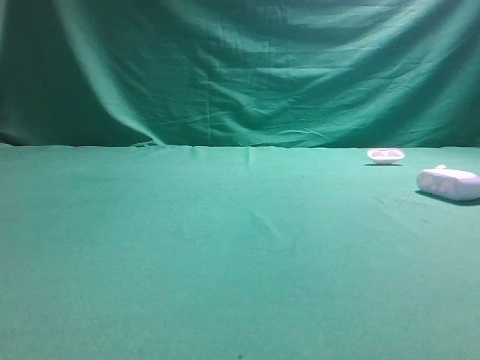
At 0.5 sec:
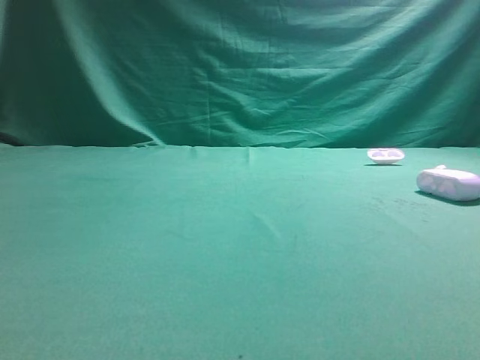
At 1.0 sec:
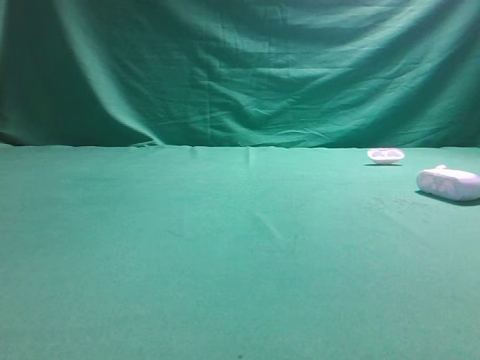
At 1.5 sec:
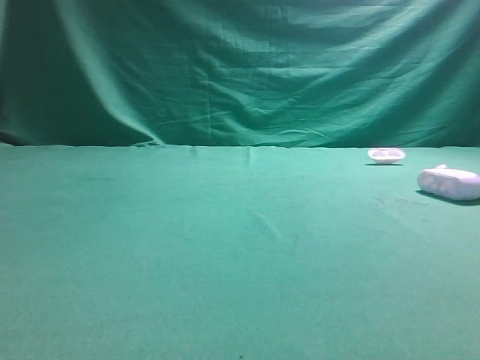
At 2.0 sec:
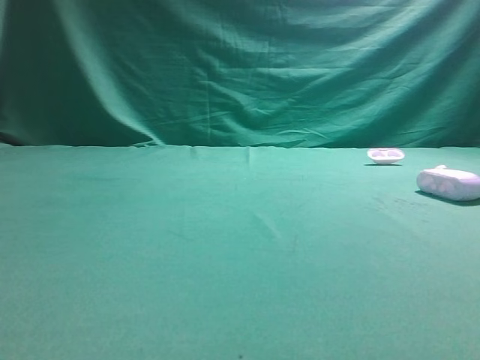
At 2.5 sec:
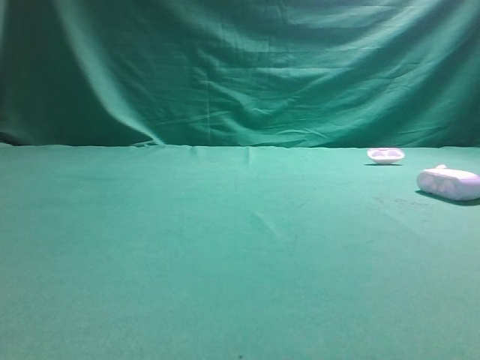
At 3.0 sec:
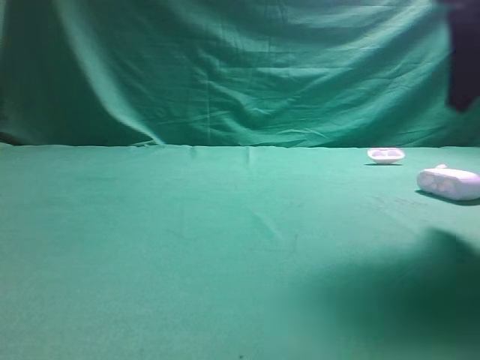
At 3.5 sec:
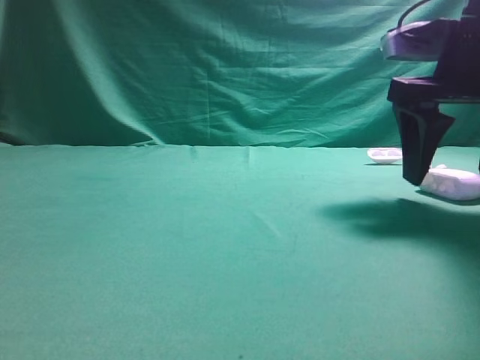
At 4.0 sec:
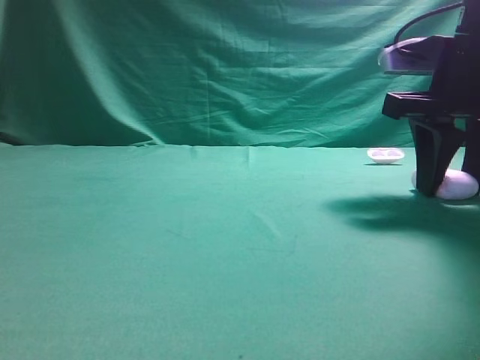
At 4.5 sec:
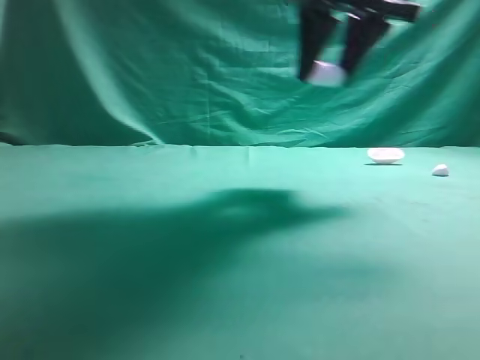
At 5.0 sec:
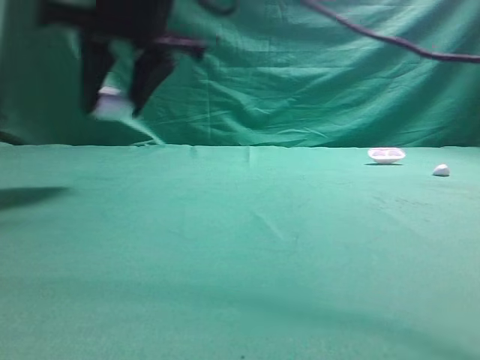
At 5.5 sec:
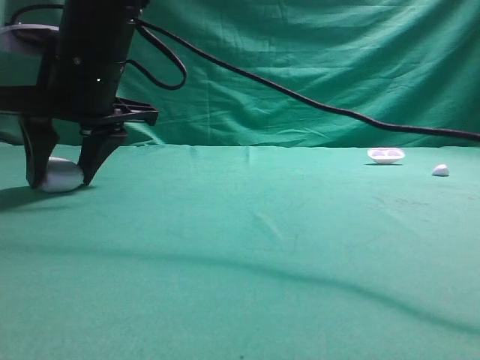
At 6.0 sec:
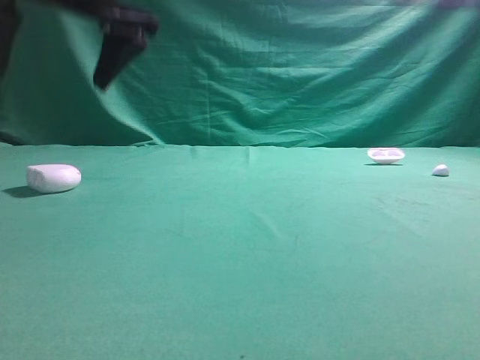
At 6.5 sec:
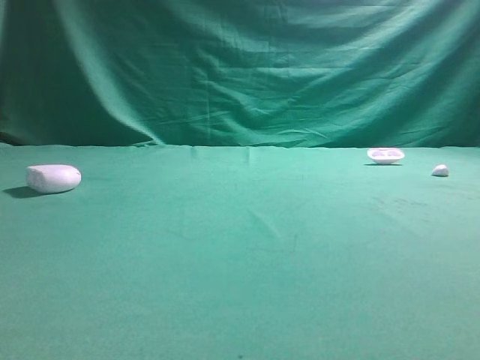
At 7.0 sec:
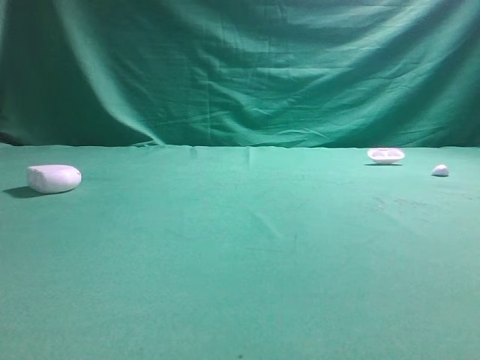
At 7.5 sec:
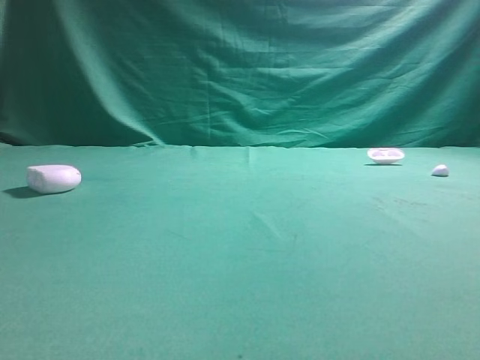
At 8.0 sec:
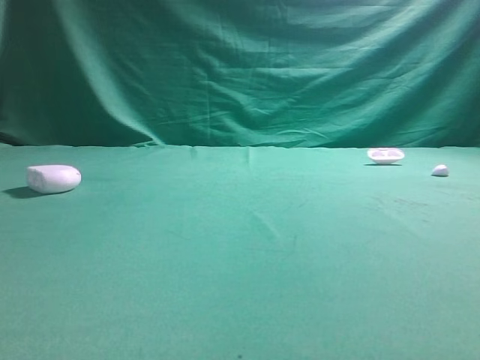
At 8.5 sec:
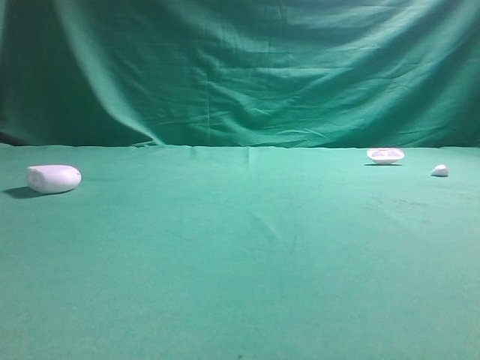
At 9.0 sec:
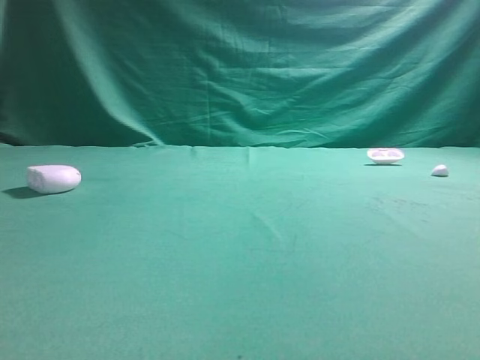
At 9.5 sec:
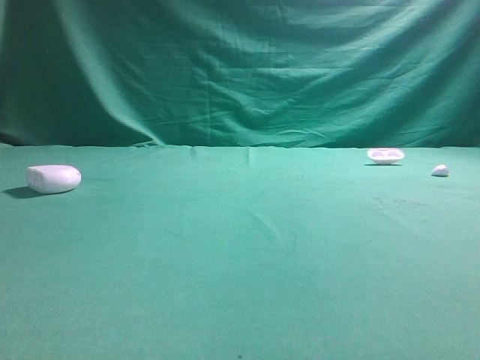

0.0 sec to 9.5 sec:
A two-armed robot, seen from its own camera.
Step, 0.0 sec to 4.0 sec: Grasp the Bluetooth earphone case.
Step, 4.5 sec to 5.5 sec: Place bluetooth earphone case on the left side of the table.

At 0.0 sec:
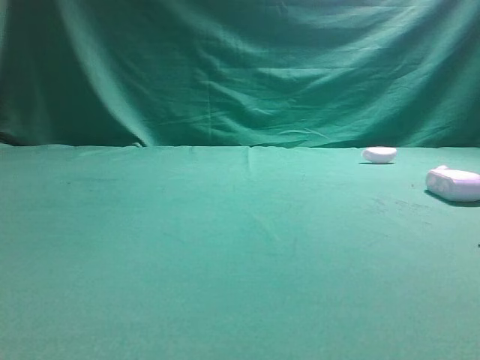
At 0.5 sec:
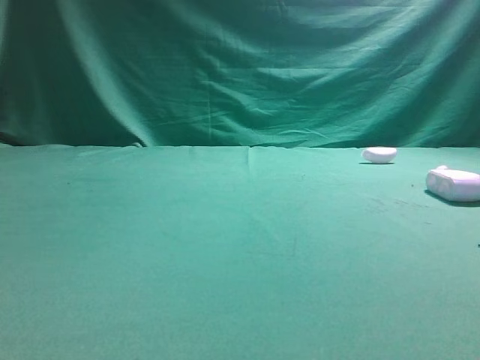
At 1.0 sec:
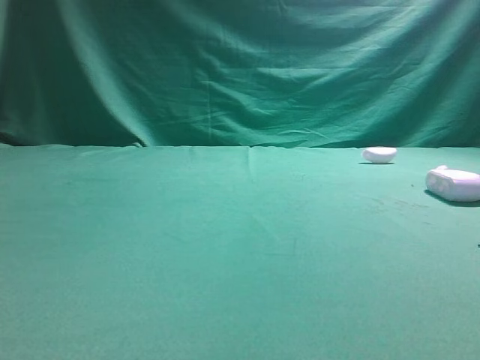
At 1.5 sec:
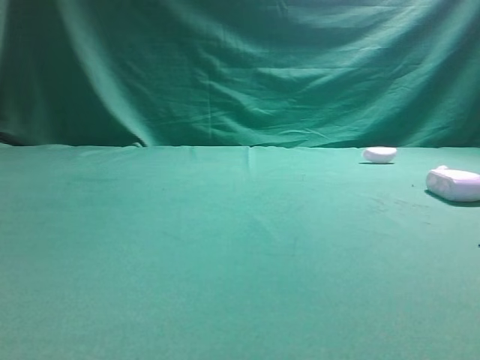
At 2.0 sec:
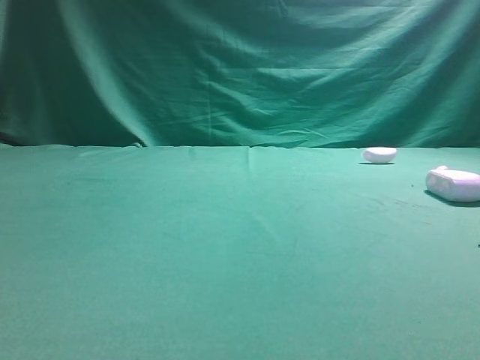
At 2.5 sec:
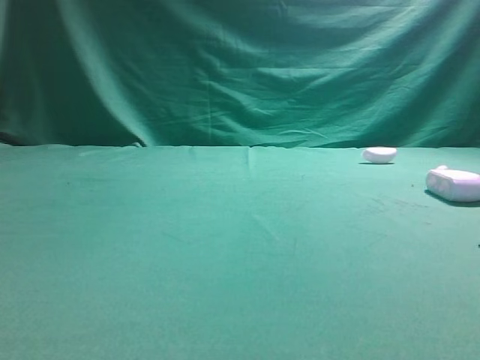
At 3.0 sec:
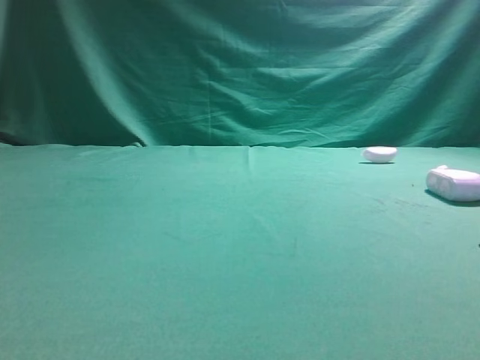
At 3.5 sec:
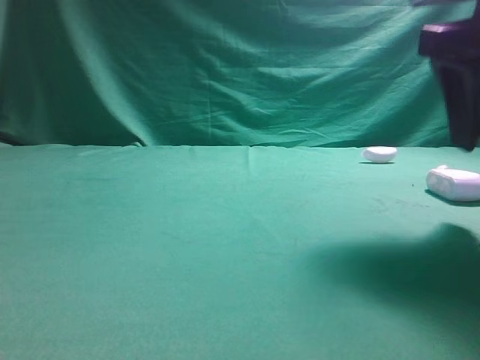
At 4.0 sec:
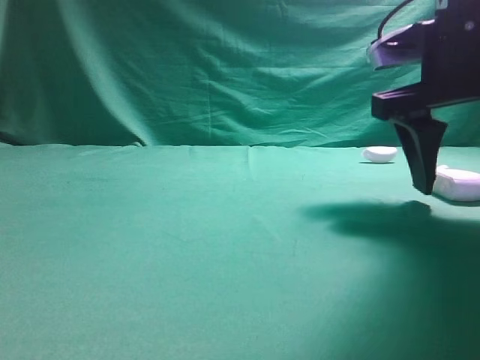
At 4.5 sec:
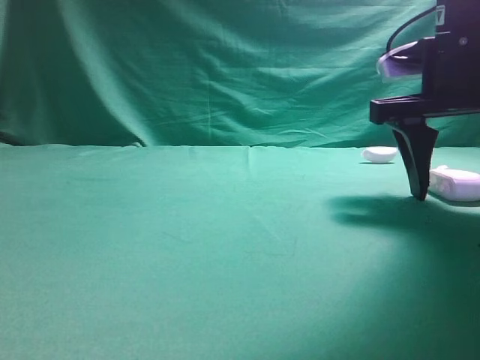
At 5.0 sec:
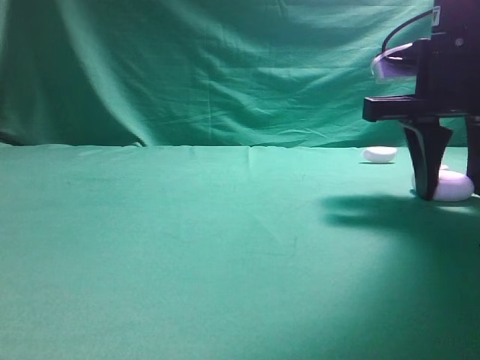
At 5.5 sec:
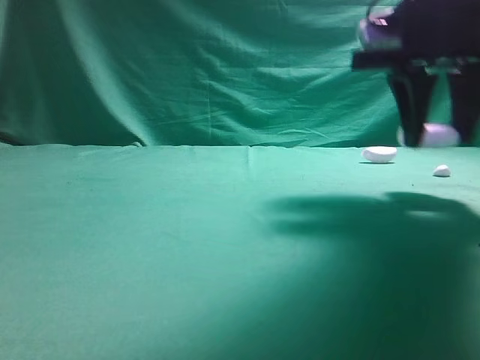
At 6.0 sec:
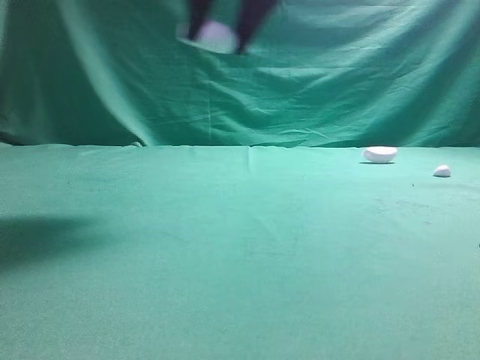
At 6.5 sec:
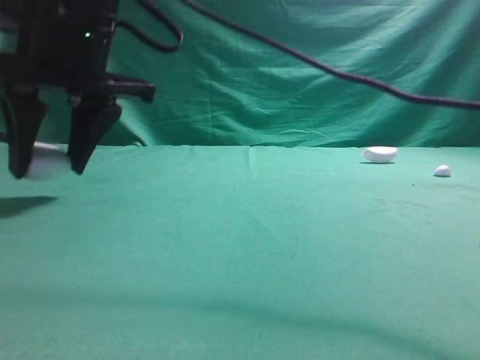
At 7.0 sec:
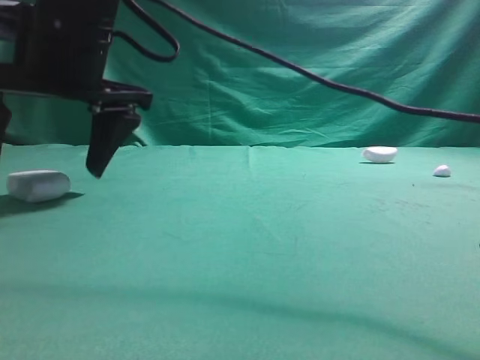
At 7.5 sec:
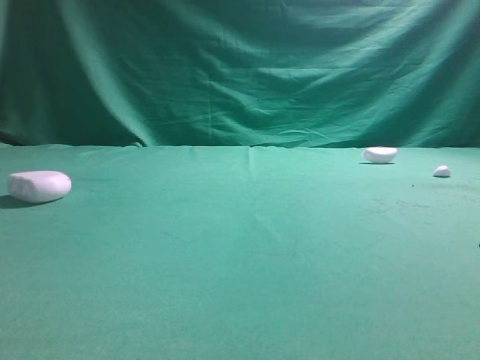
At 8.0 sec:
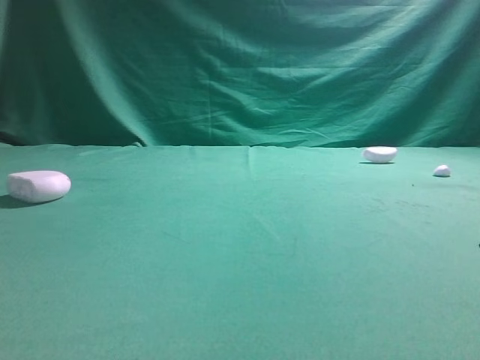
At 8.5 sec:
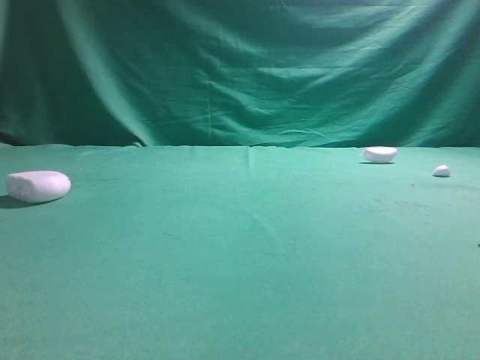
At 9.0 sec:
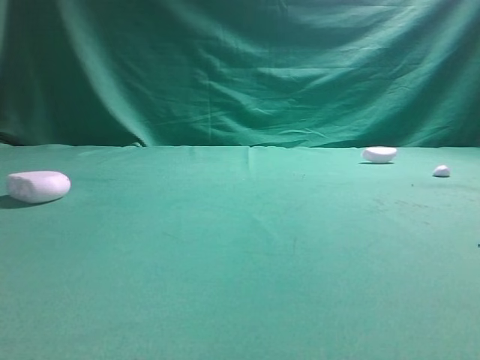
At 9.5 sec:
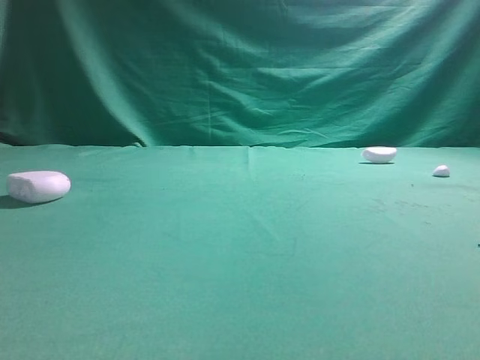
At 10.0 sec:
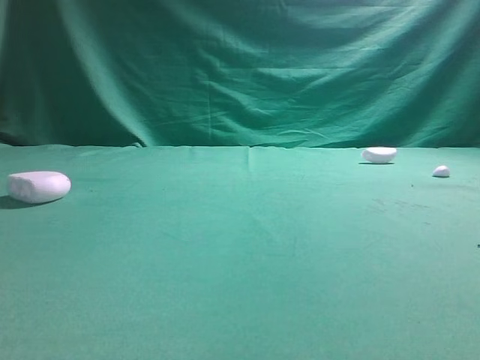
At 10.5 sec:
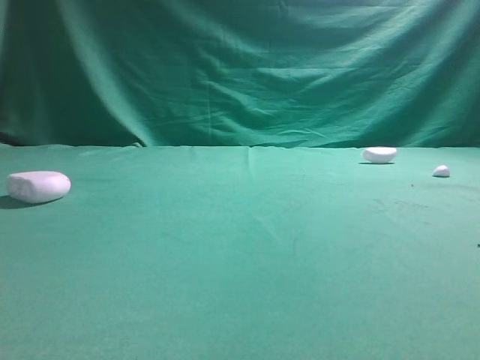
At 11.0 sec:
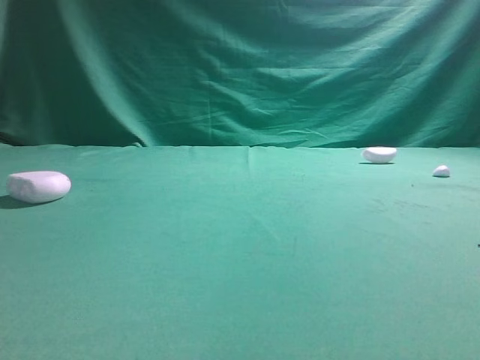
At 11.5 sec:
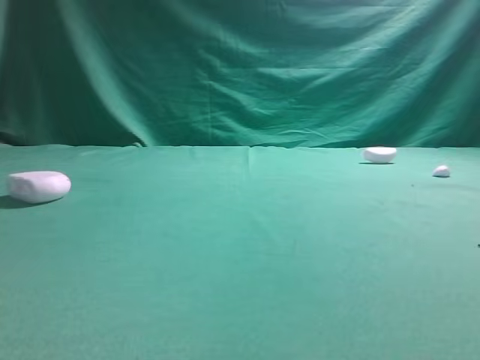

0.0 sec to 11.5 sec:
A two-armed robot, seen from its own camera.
Step, 0.0 sec to 5.5 sec: Grasp the Bluetooth earphone case.
Step, 6.0 sec to 7.0 sec: Place bluetooth earphone case on the left side of the table.

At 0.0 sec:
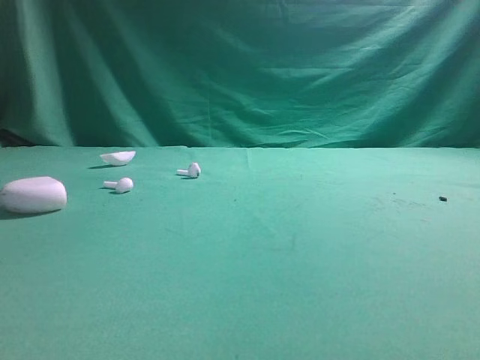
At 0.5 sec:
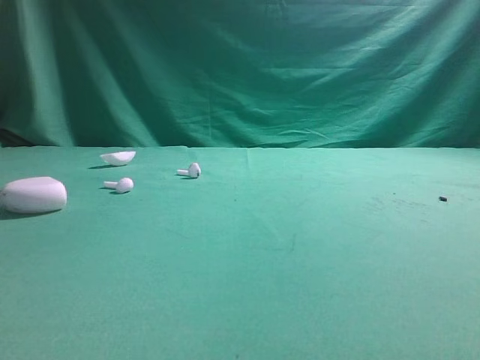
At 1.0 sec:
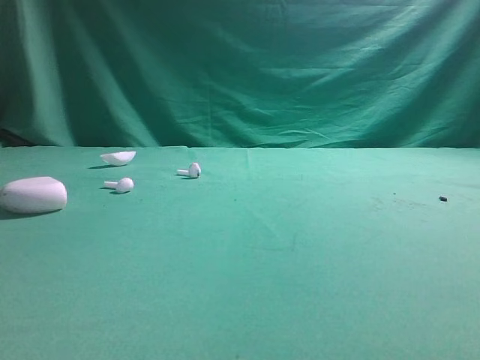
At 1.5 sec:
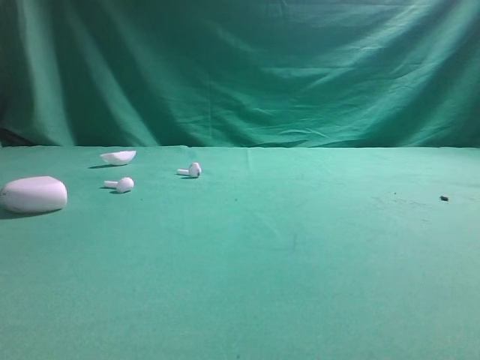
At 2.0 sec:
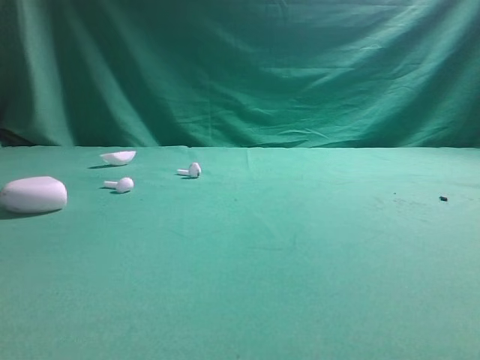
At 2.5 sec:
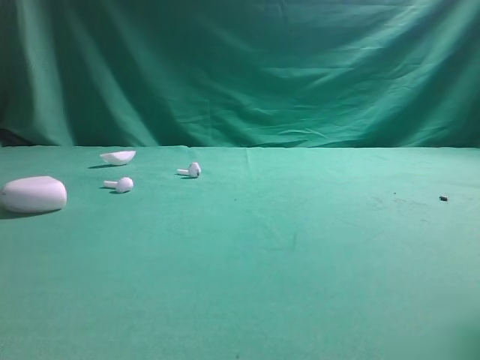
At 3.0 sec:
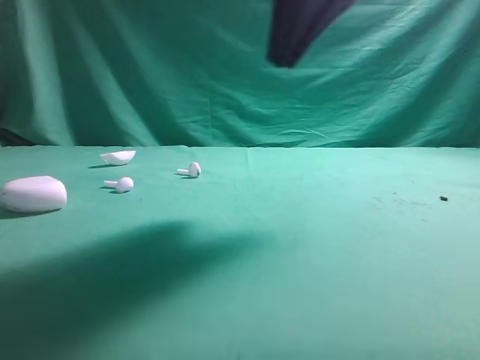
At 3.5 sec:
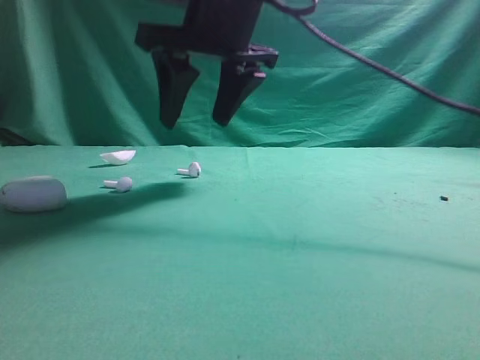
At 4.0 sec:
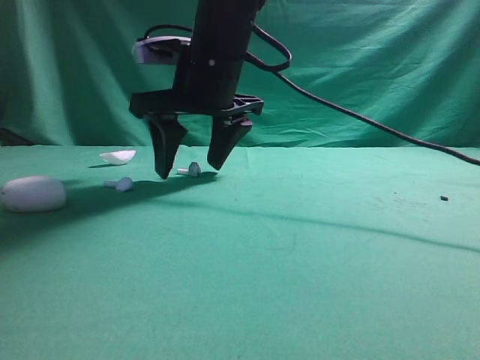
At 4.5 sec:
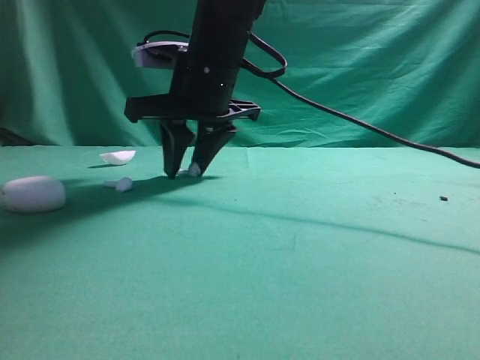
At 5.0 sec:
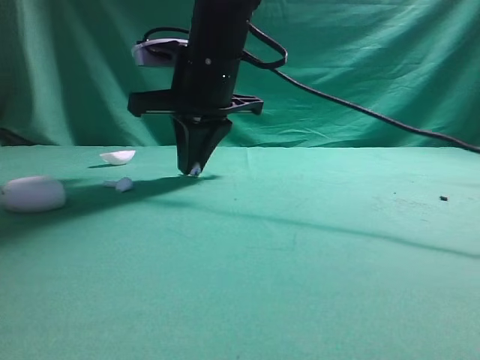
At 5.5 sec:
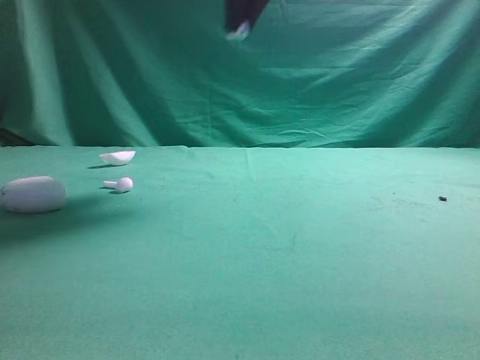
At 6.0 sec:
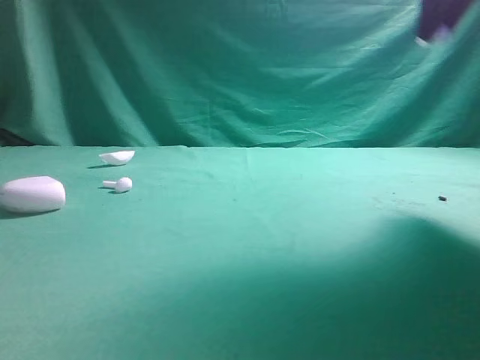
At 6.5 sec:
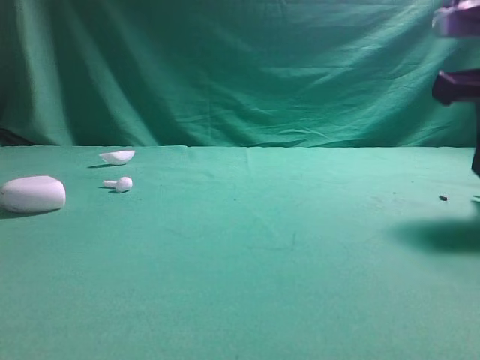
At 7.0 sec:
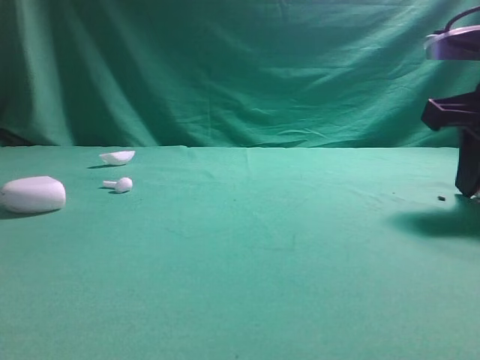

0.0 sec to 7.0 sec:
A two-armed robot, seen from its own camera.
Step, 0.0 sec to 5.0 sec: Grasp the Bluetooth earbud.
